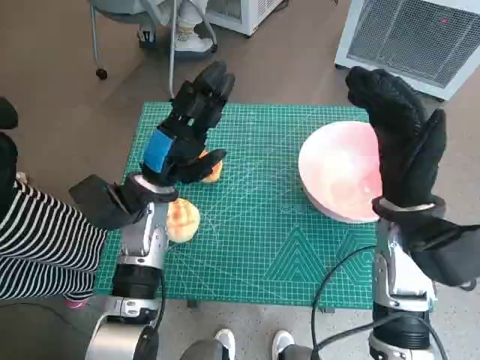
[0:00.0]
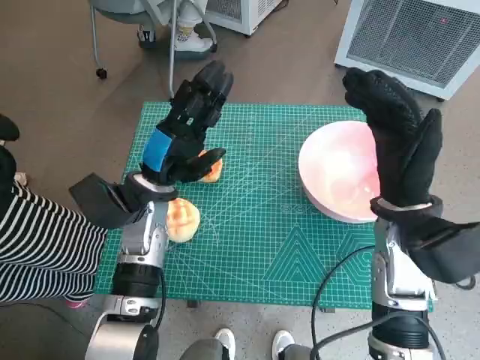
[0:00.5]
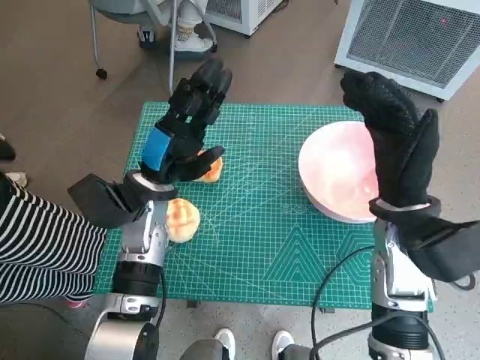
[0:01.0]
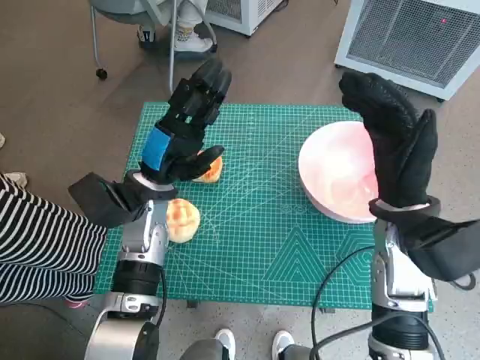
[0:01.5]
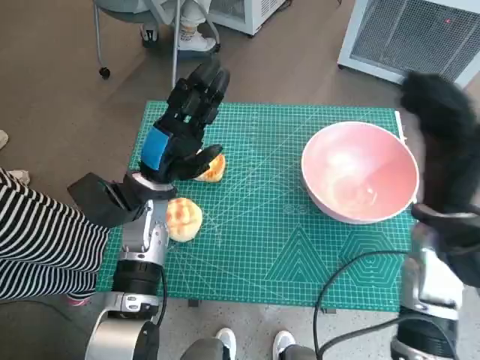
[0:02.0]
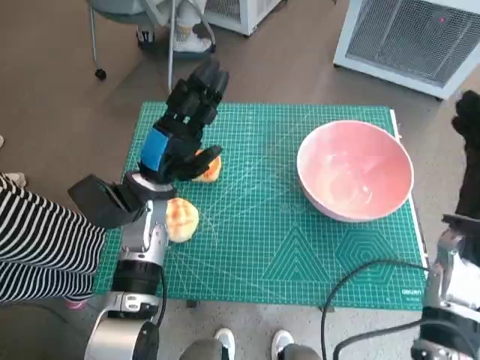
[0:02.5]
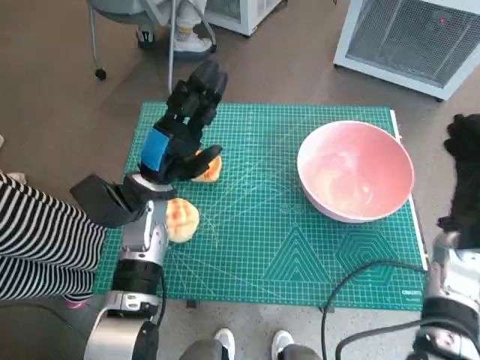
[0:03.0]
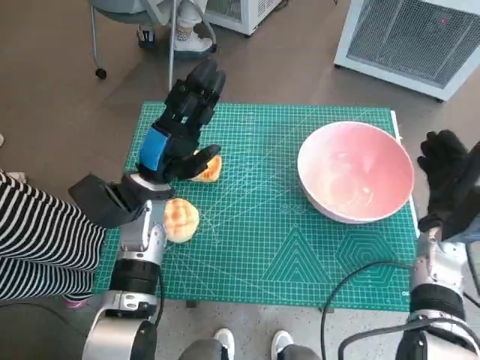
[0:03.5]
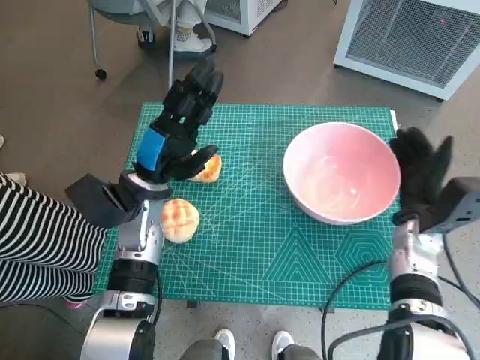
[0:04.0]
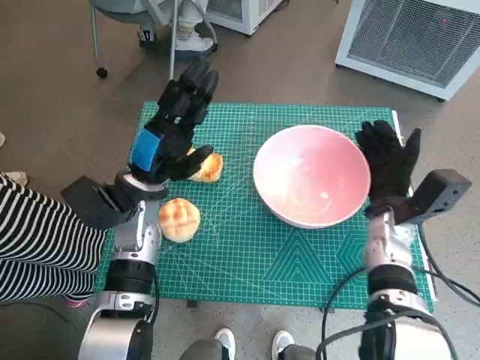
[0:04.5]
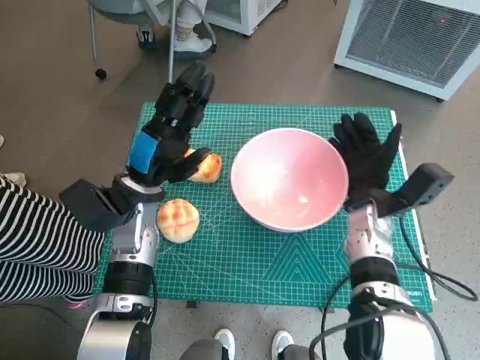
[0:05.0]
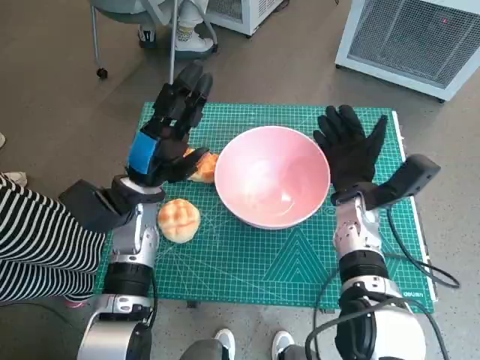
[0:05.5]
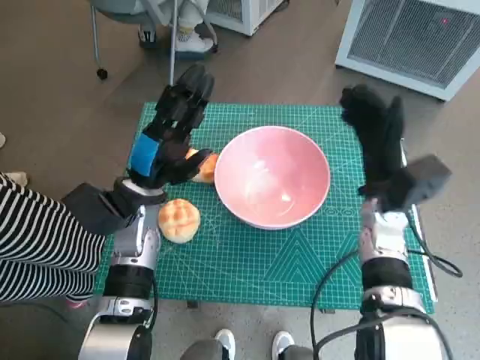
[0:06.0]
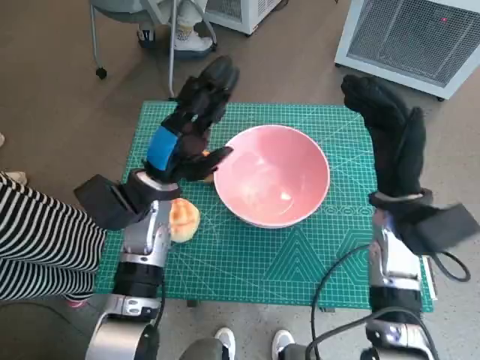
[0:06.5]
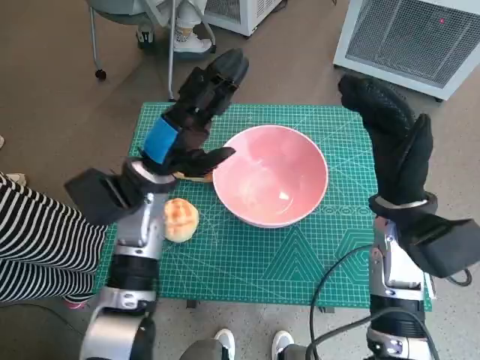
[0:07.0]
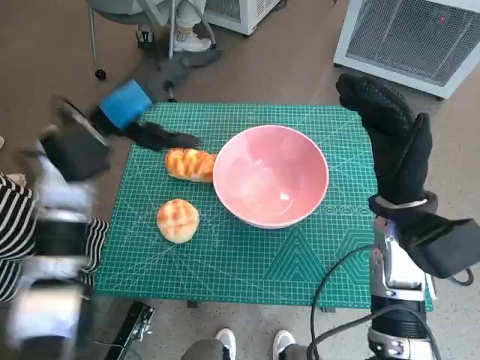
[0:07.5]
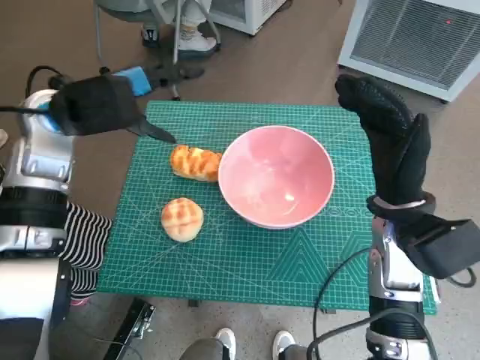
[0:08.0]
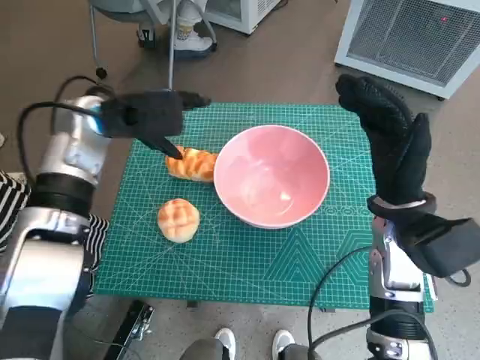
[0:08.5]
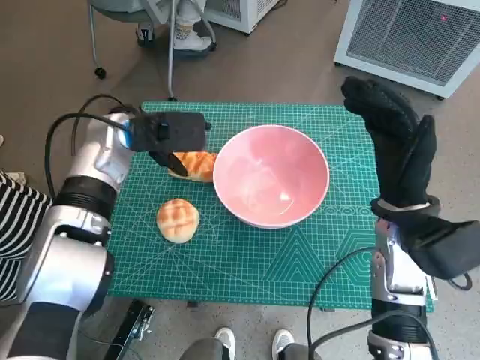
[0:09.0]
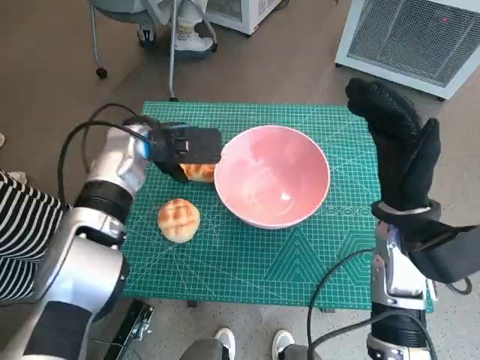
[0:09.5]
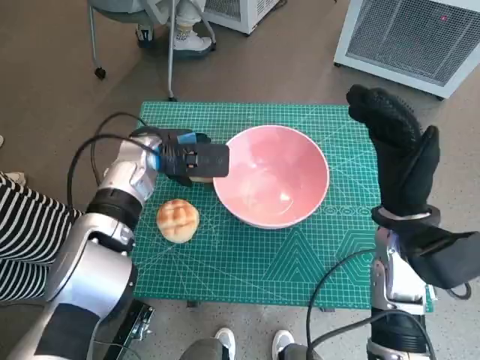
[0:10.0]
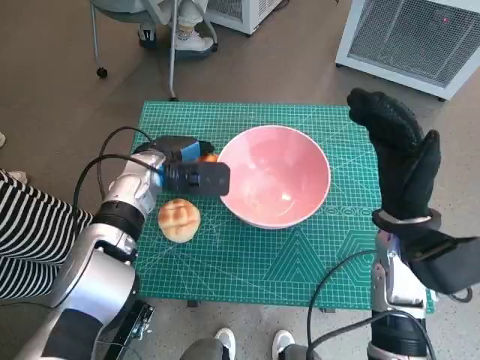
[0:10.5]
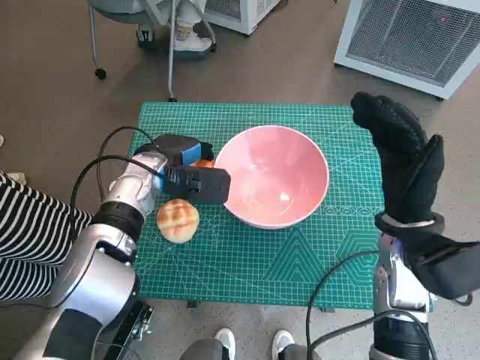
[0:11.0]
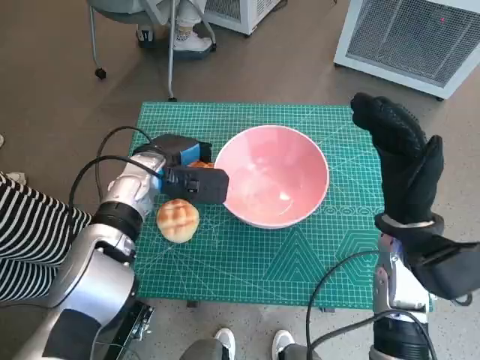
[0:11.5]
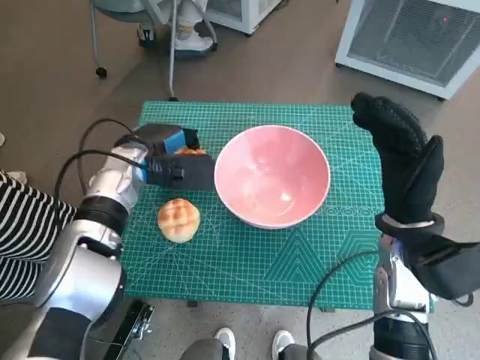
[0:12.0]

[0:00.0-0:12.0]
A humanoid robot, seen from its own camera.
Task of the whole recording: Push the bowl into the center of the table and put the bread into the bowl.
Step, 0:00.0 to 0:05.5: Move the pink bowl to the center of table with right hand.
Step, 0:06.0 to 0:10.5: Grasp the long bread with left hand.
0:02.0 to 0:04.0: The right hand shifts approximately 10 cm downward.
0:04.0 to 0:06.0: The right hand moves to the left, some 5 cm.
0:06.0 to 0:08.0: The right hand heads upward and backward, covering approximately 5 cm, while the left hand travels upward by approximately 15 cm.
0:08.0 to 0:10.0: The left hand travels downward and to the right by about 10 cm.
0:10.0 to 0:12.0: The hands move only a little.

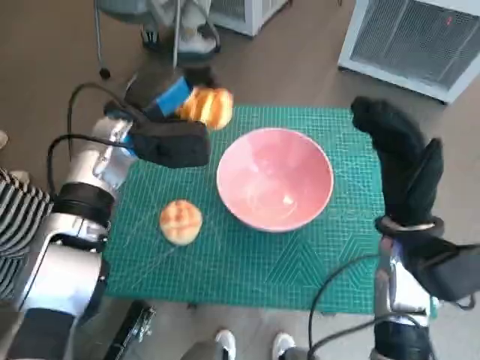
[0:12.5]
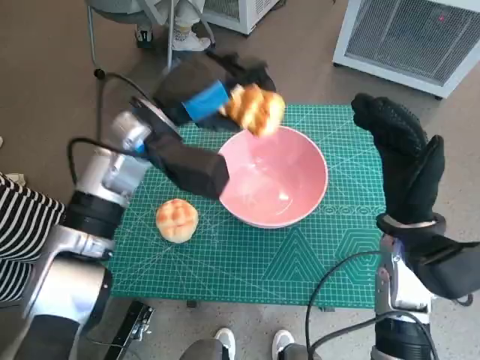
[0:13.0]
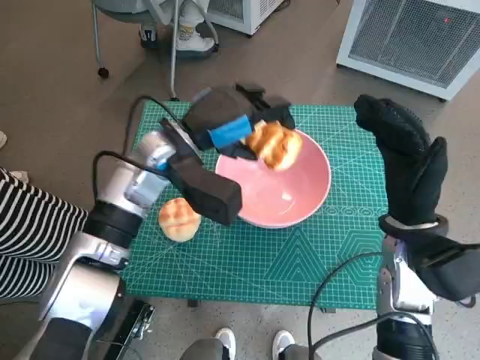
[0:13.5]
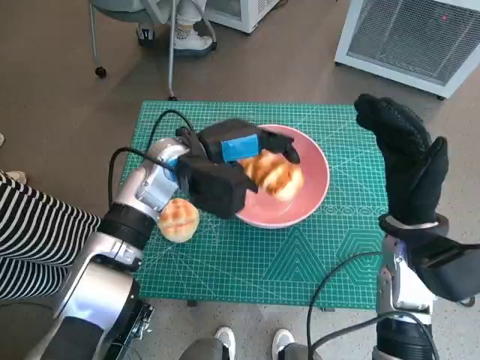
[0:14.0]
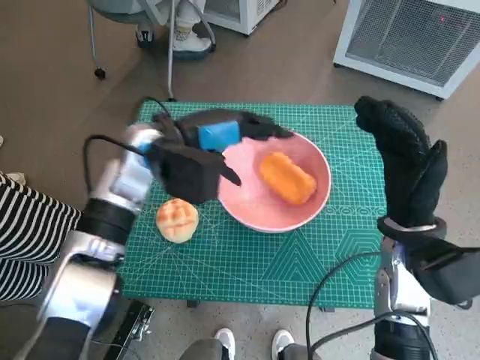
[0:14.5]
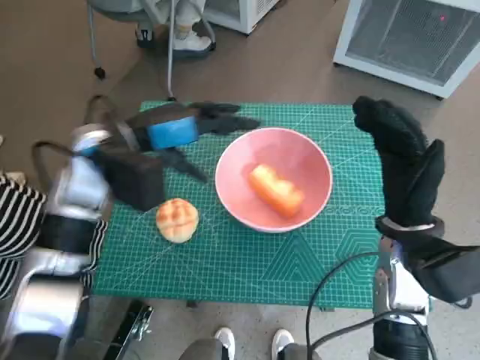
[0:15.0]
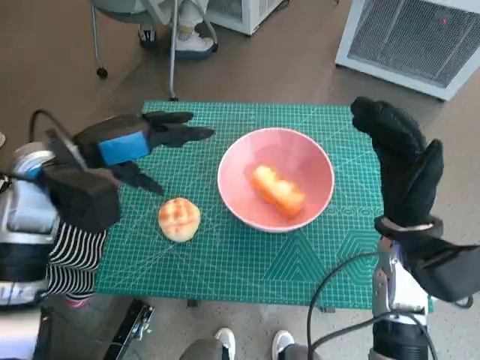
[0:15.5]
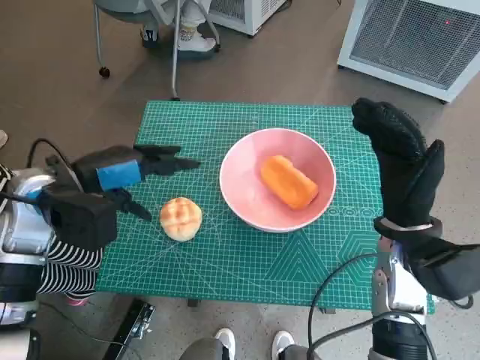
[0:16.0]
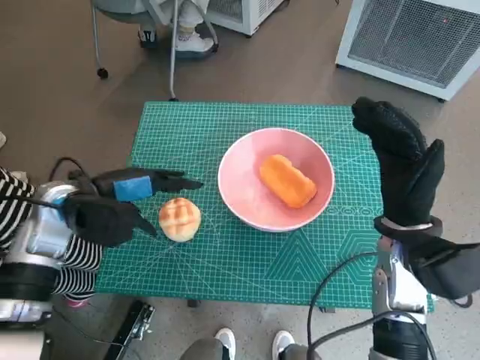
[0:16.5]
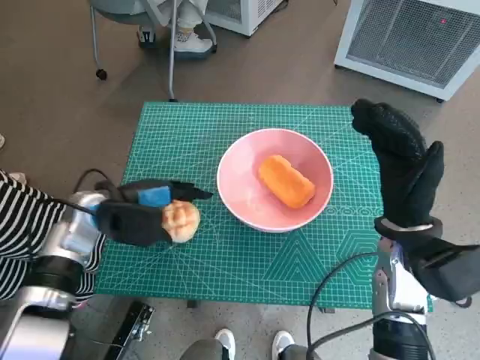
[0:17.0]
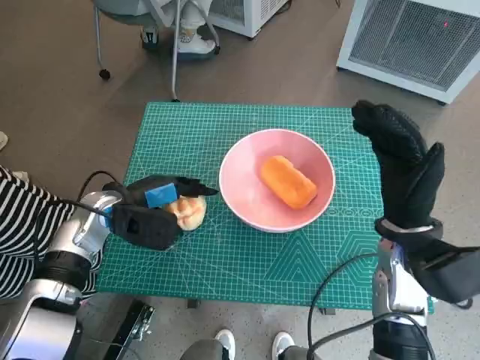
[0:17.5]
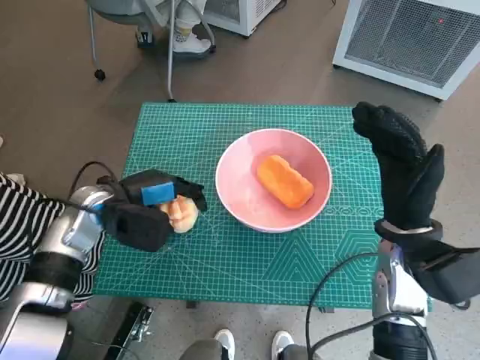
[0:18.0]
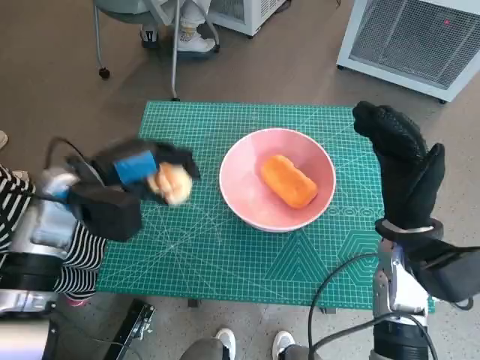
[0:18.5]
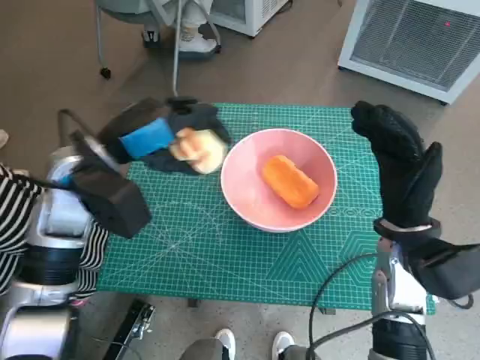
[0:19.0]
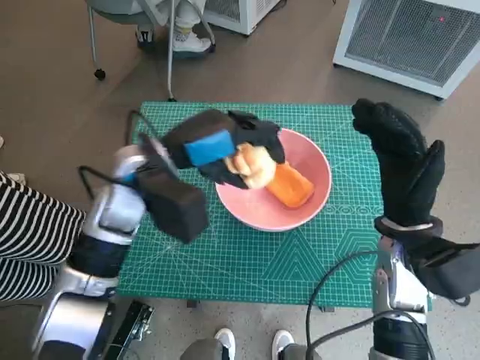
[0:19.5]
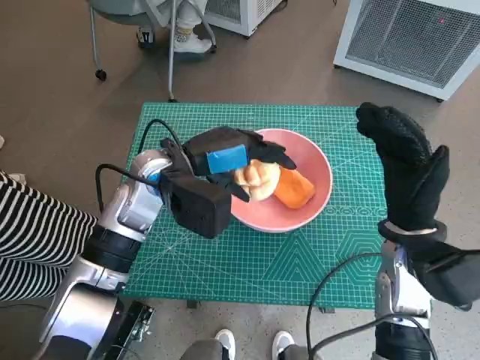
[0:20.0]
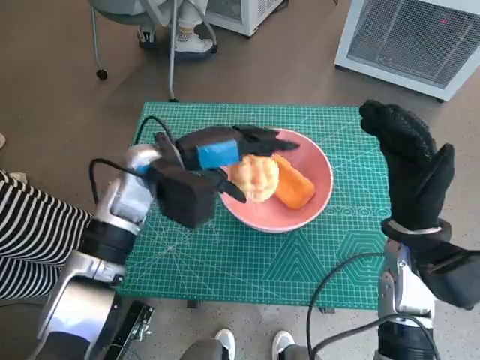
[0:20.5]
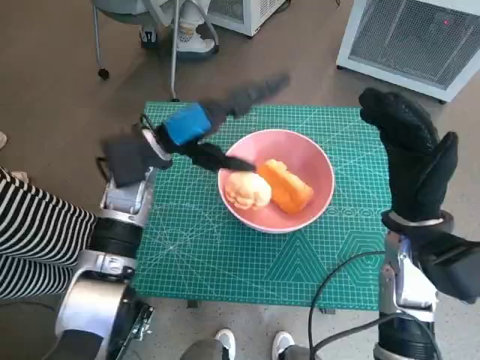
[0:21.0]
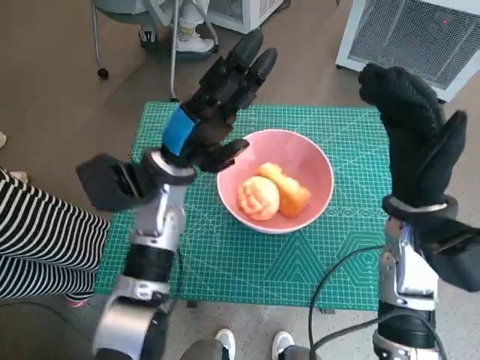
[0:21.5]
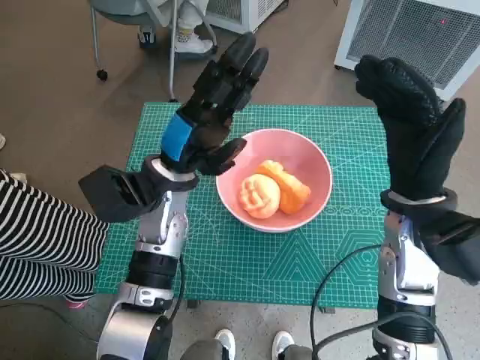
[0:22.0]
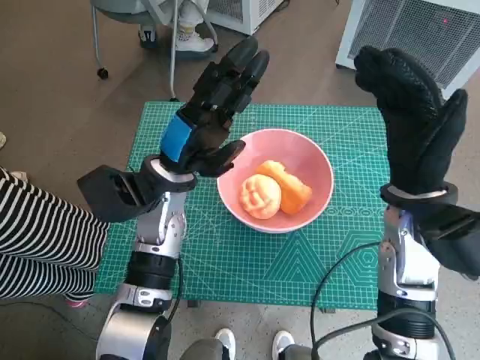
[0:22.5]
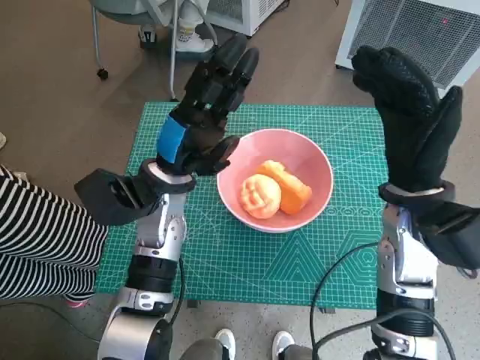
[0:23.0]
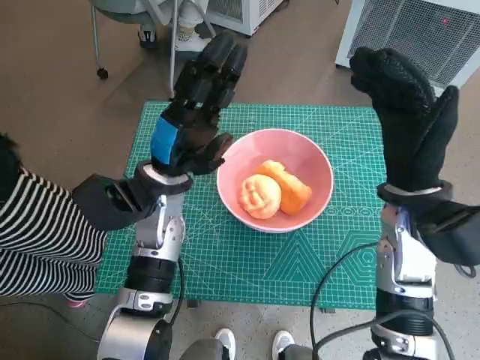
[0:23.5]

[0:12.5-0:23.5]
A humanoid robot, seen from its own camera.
Task of the whole recording: Push the bowl into the center of the table and put the bread into the bowl.
Step, 0:12.5 to 0:14.5: Place the long bread in pink bowl with left hand.
Step, 0:15.0 to 0:17.0: Grasp the round bread with left hand.
Step, 0:17.5 to 0:21.0: Place the round bread in pink bowl with left hand.
0:12.5 to 0:14.5: The left hand moves approximately 5 cm.
0:14.5 to 0:16.0: The left hand goes about 15 cm to the left and backward.
0:16.0 to 0:18.0: The left hand shifts about 10 cm downward.
0:18.0 to 0:20.0: The left hand shifts some 10 cm to the right and upward.

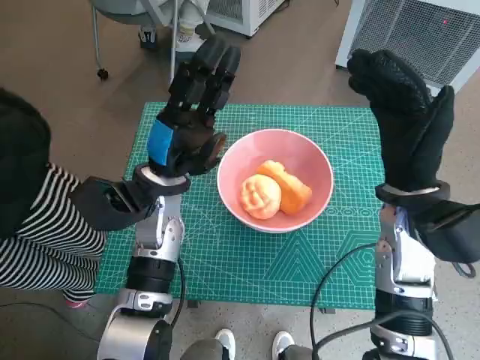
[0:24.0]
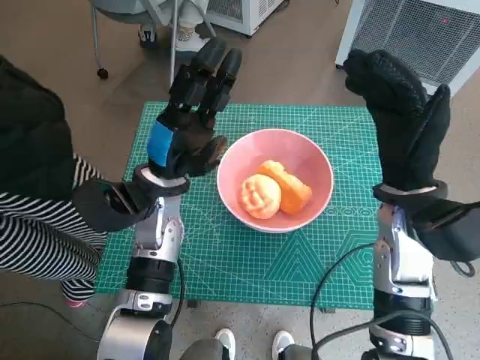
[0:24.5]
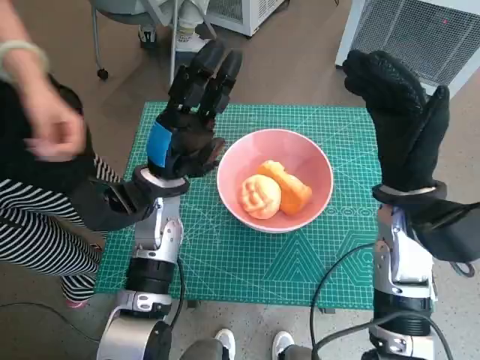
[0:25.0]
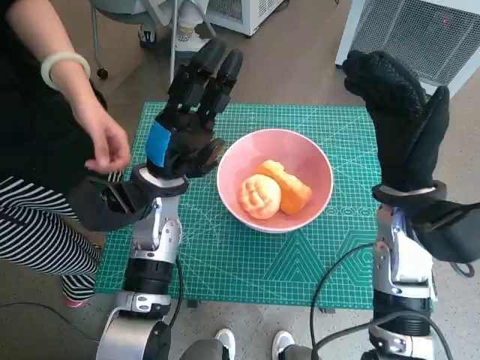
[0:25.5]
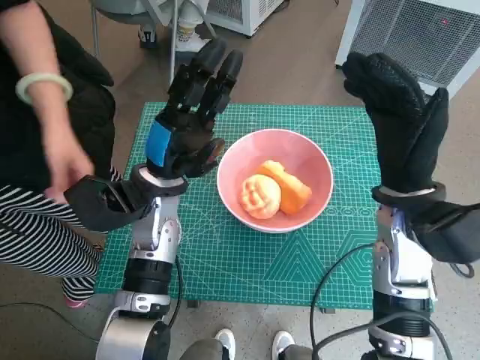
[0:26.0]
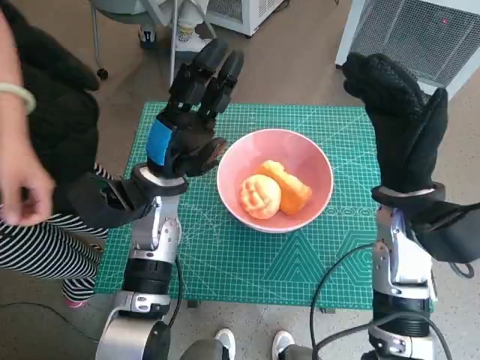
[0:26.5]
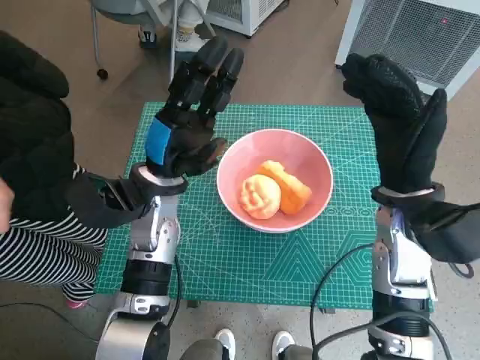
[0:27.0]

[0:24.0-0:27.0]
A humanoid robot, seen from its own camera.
Task of the whole recording: Push the bowl into the center of the table and put the bread into the bowl.
0:24.0 to 0:27.0: Both hands stay about where they are.
